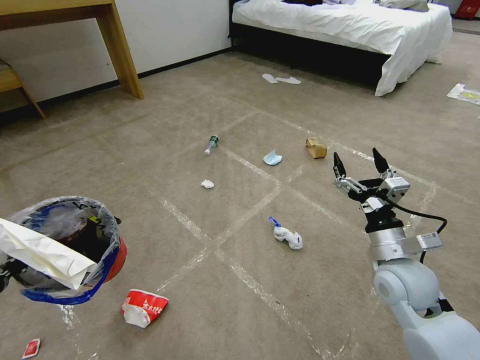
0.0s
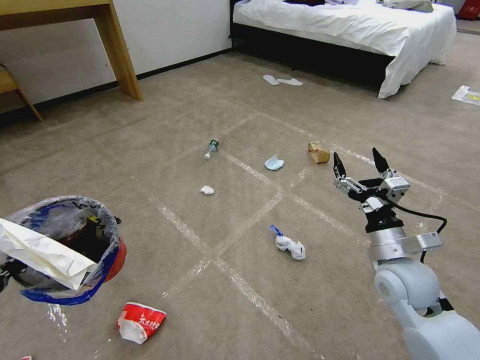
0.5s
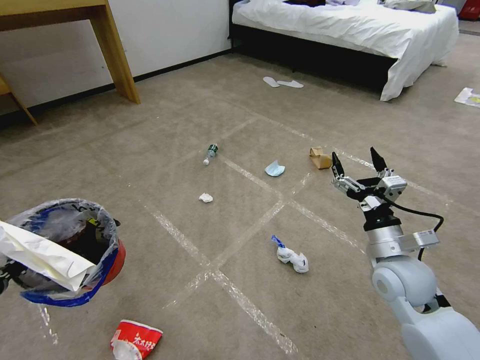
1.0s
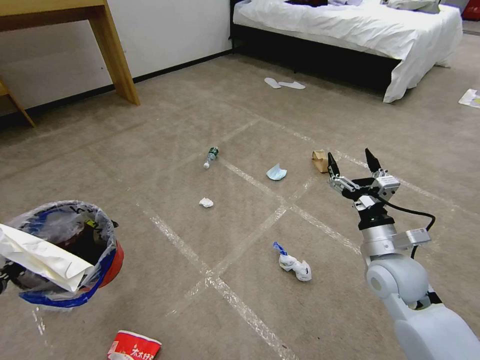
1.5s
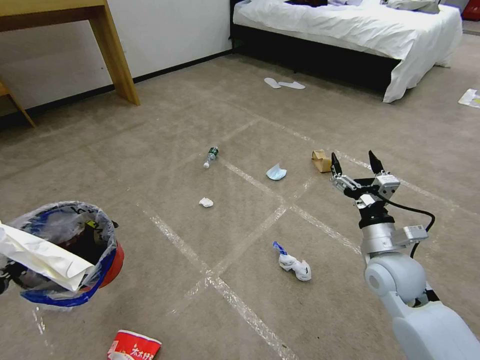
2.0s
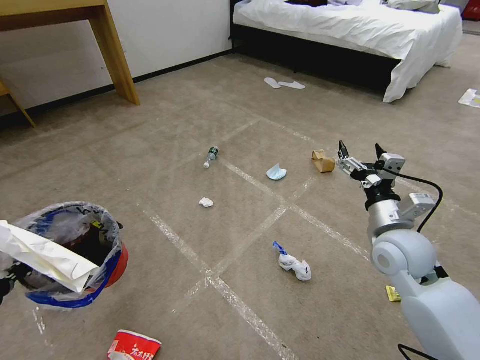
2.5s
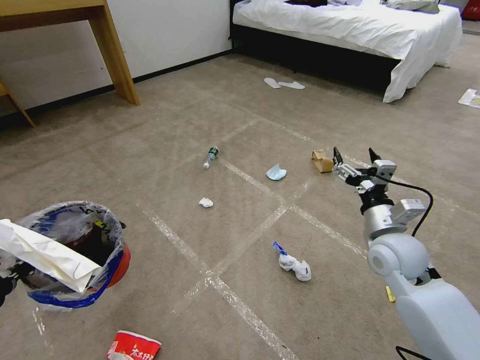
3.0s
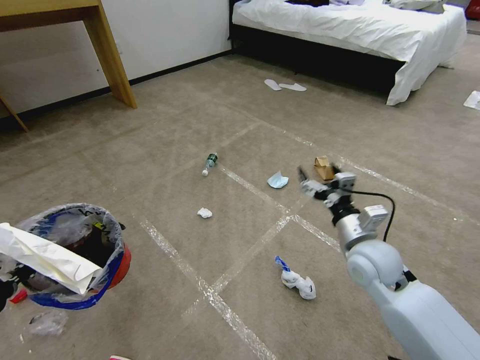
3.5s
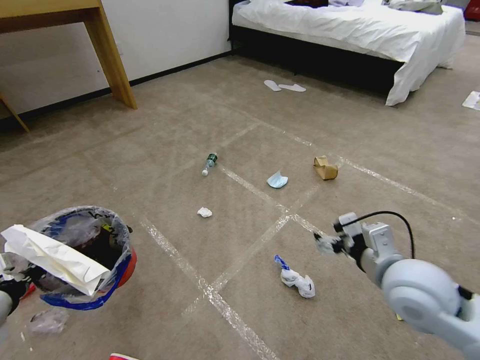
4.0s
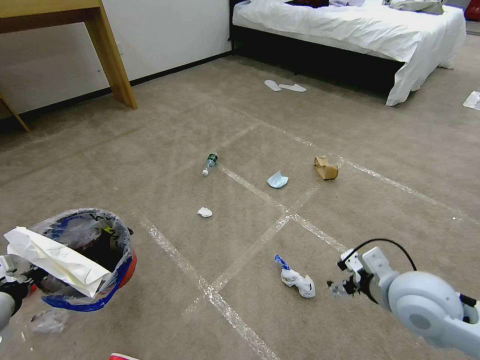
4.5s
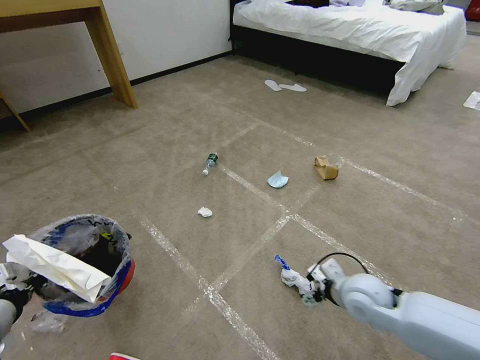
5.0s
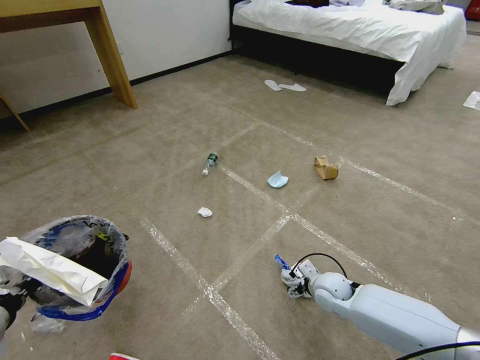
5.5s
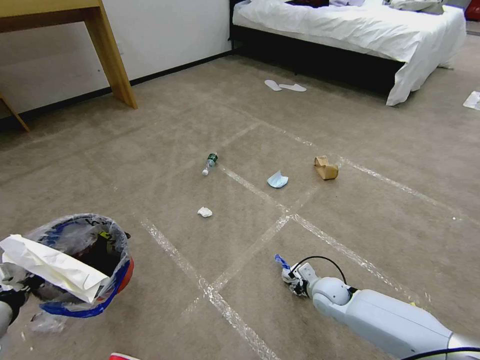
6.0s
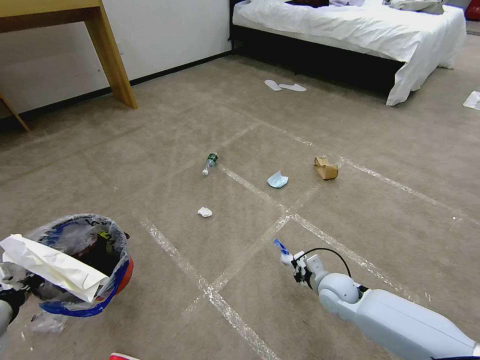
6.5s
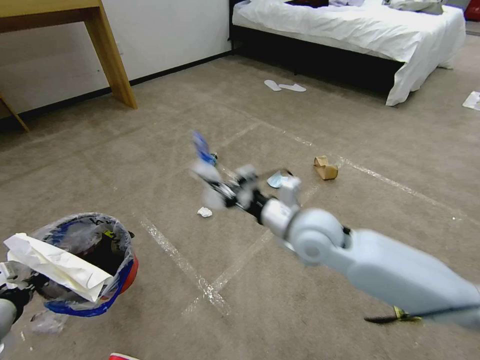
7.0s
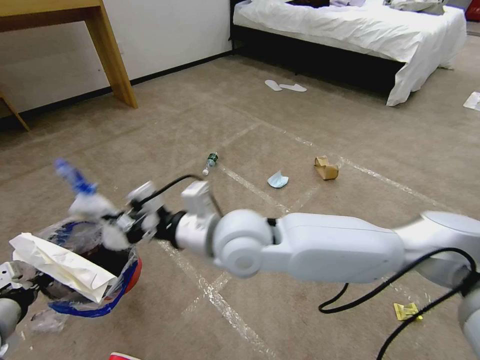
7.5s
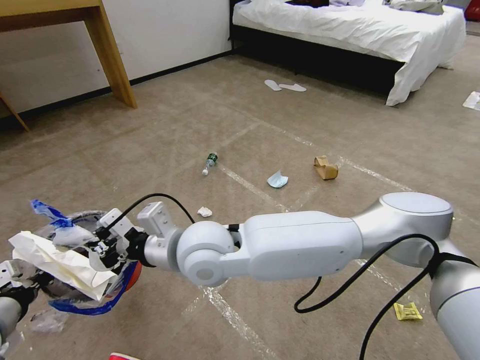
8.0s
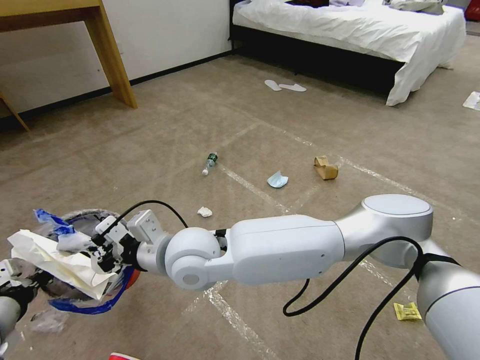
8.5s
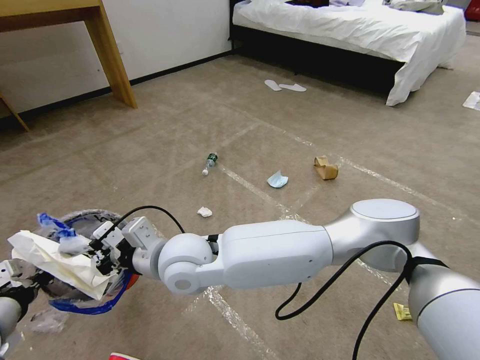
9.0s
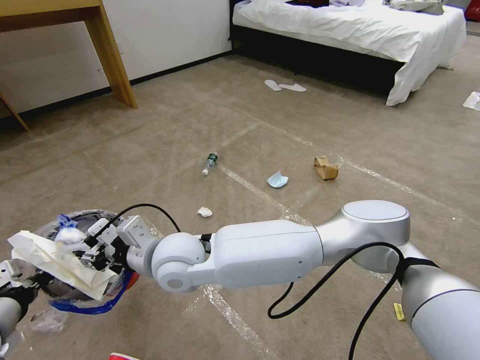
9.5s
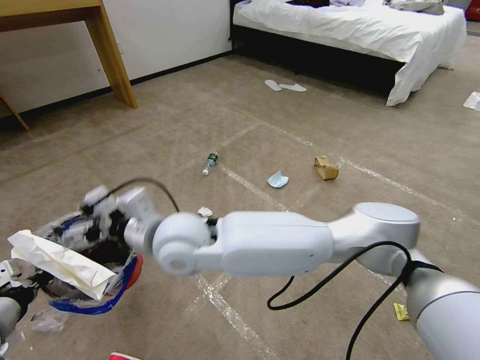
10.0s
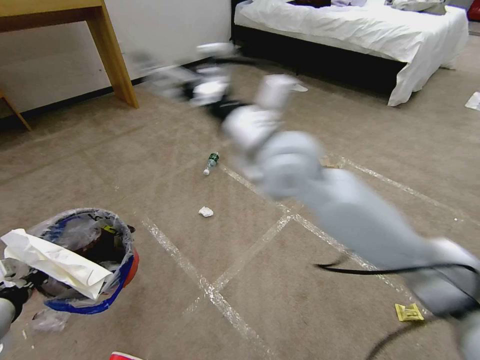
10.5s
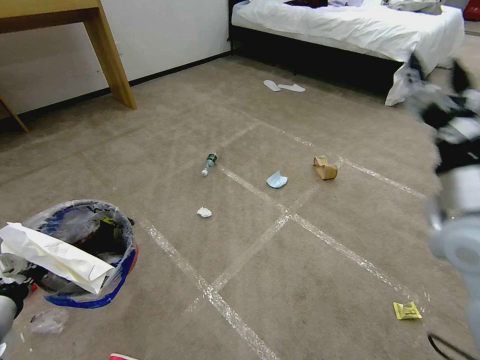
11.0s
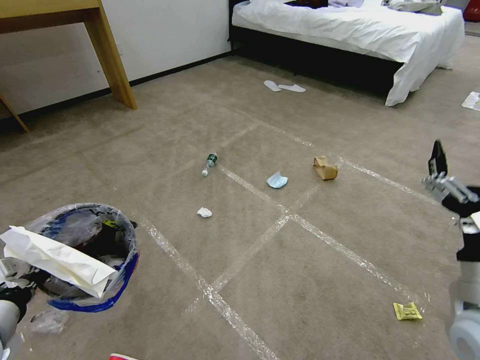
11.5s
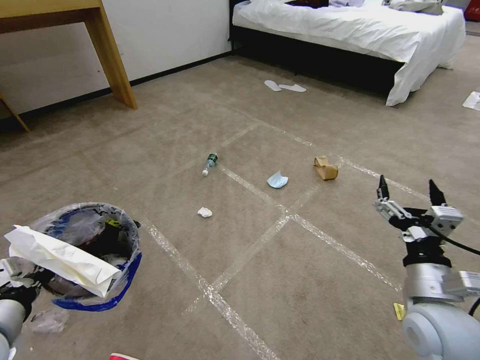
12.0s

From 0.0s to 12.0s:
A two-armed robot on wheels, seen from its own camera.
Task of the whole recording: Pick up the trash bin and place the garbage on the floor into it.
From 0.0s to 2.0s: The grippers move only a little.
From 2.0s to 4.0s: The right gripper shifts approximately 10 cm upward and backward.
From 4.0s to 6.0s: The right gripper goes roughly 30 cm downward, and closes its fingers.
From 6.0s to 8.0s: The right gripper shifts about 40 cm to the left and upward, and closes.
From 8.0s to 10.0s: The right gripper opens up.
From 10.0s to 12.0s: The right gripper travels to the right by roughly 40 cm.

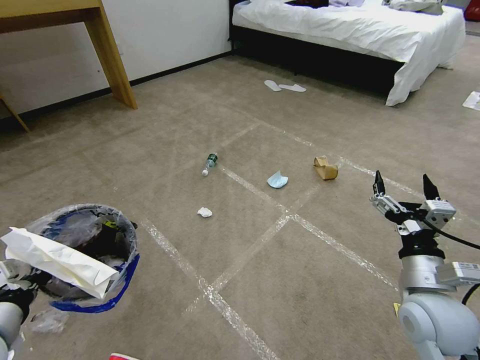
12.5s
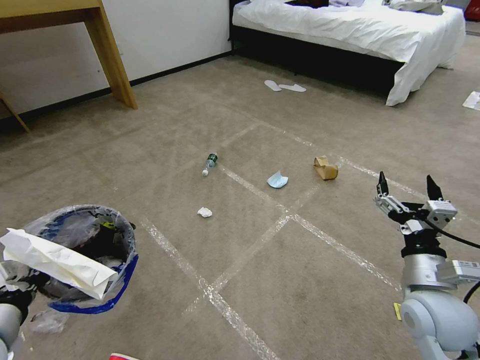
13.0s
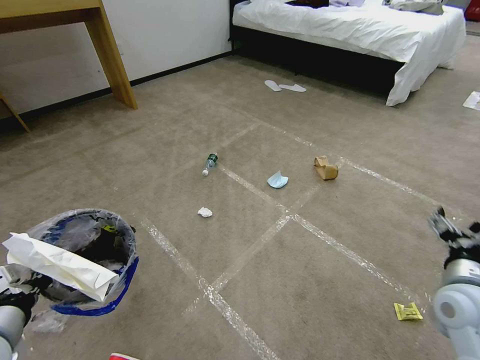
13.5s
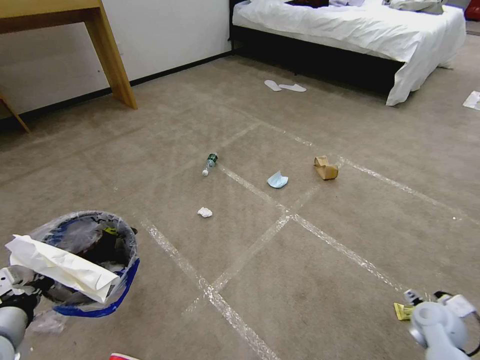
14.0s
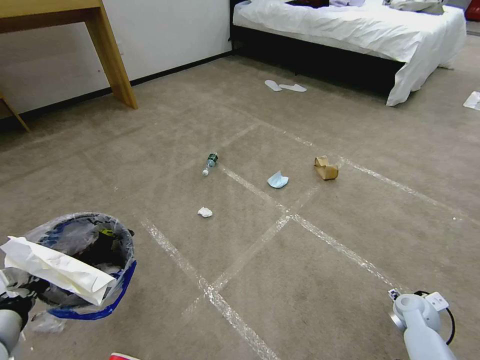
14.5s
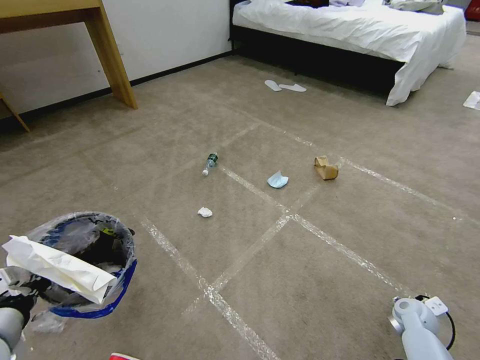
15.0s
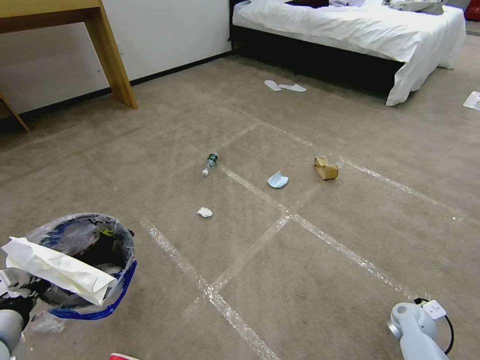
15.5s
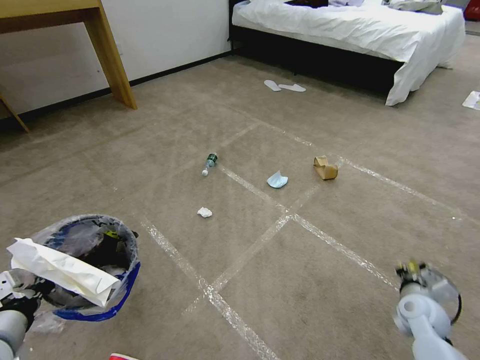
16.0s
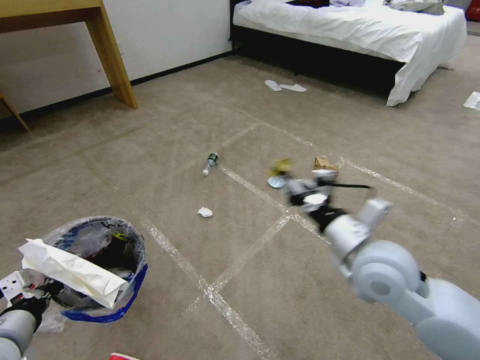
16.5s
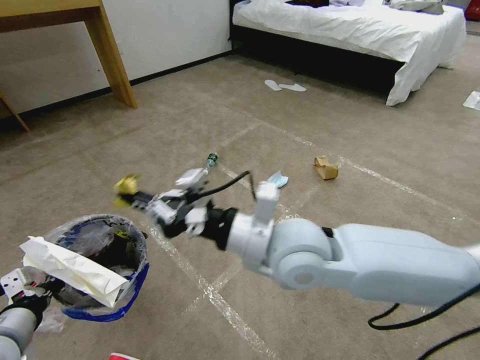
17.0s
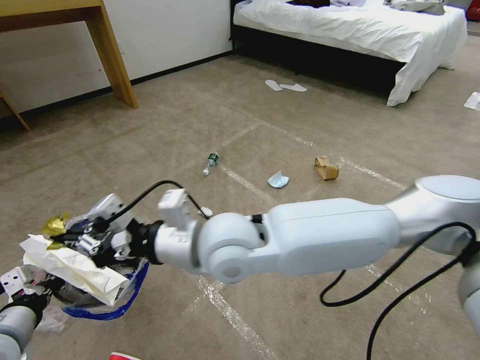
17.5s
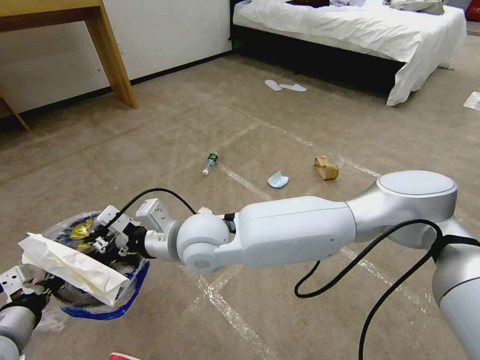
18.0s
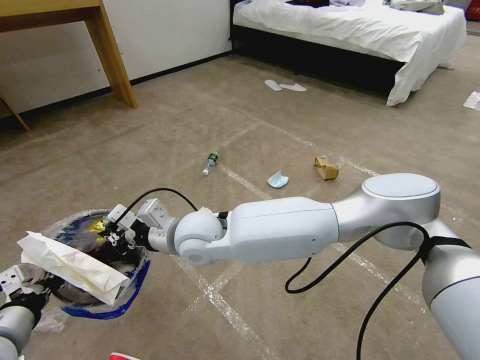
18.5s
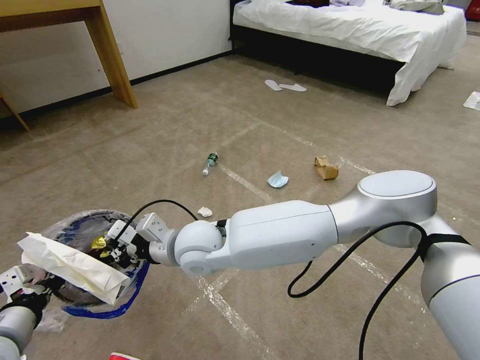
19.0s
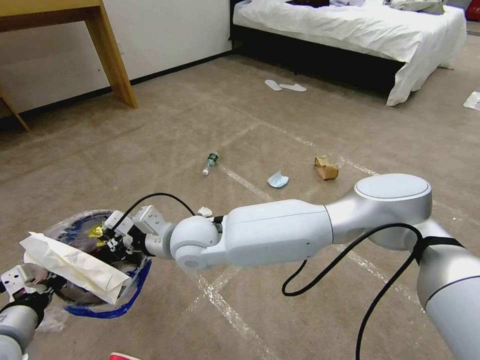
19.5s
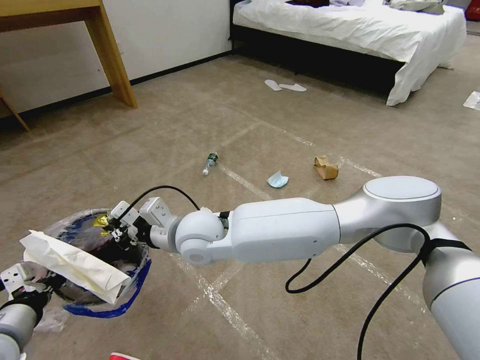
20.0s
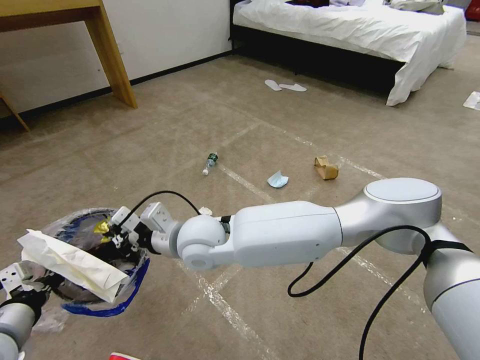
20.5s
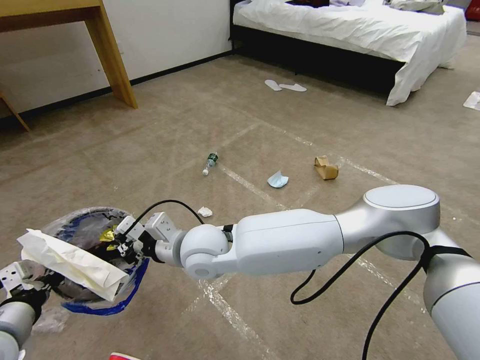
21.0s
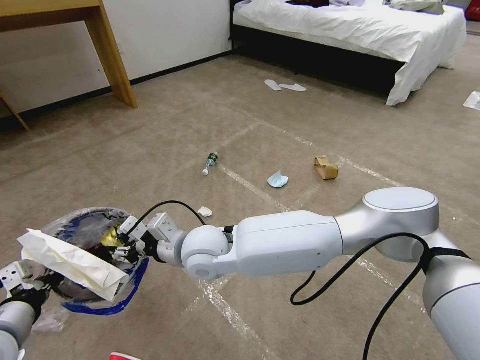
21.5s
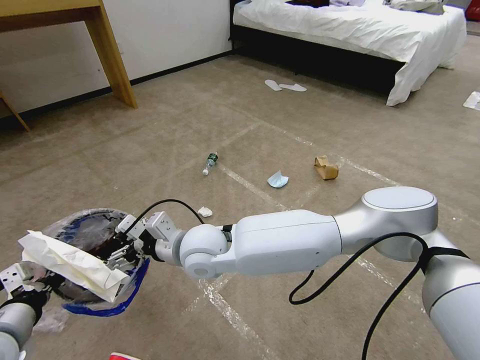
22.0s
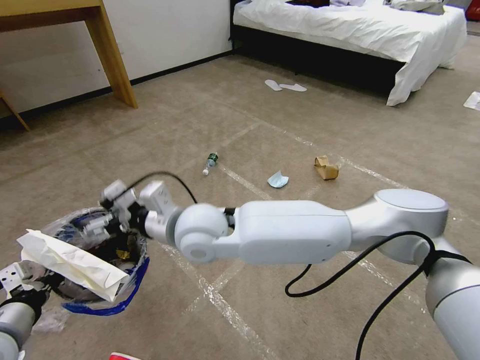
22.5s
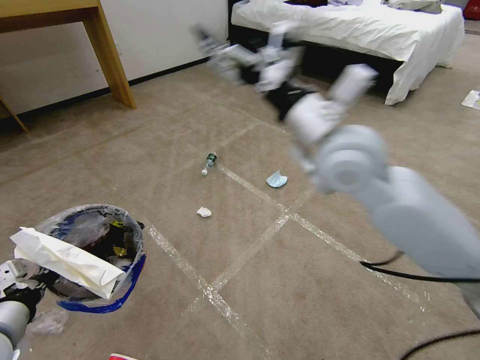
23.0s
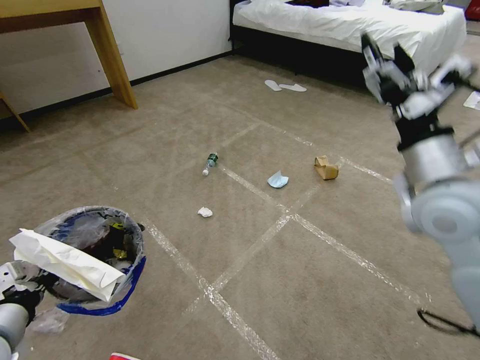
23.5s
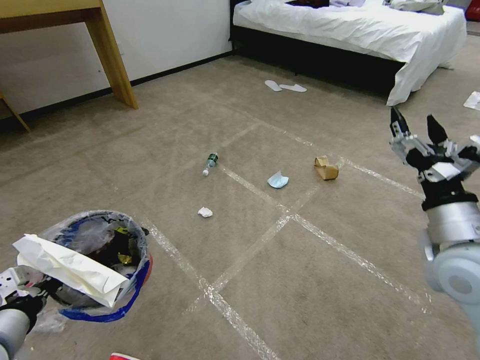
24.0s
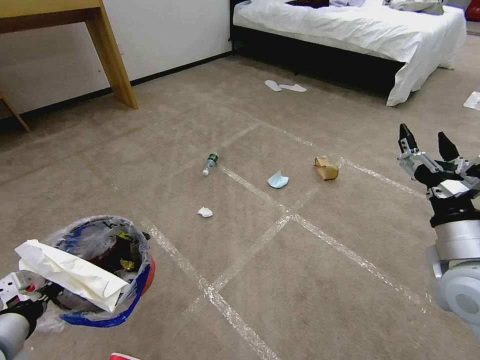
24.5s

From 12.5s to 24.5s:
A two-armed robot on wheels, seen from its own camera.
Task of the whole recording: Pick up the trash bin and place the garbage on the floor into it.
From 12.5s to 14.5s: The right gripper travels downward and to the right by about 25 cm.
From 14.5s to 16.5s: The right gripper goes some 35 cm upward and to the left, and closes.
From 16.5s to 18.5s: The right gripper moves to the left, approximately 30 cm.
From 18.5s to 20.5s: There are only small adjustments of the grippers.
From 20.5s to 22.5s: The right gripper travels upward by approximately 5 cm, and opens.
From 22.5s to 24.5s: The right gripper is displaced to the right by roughly 40 cm.

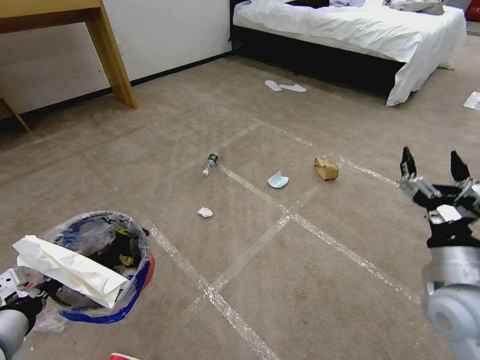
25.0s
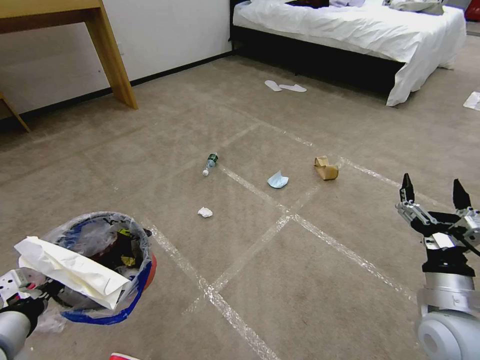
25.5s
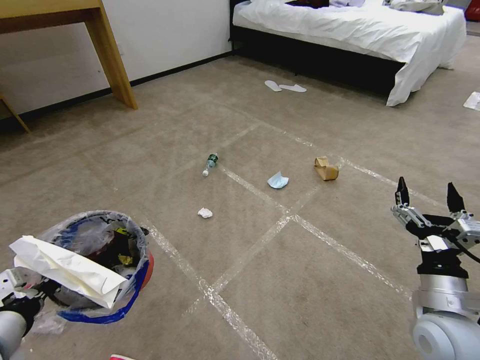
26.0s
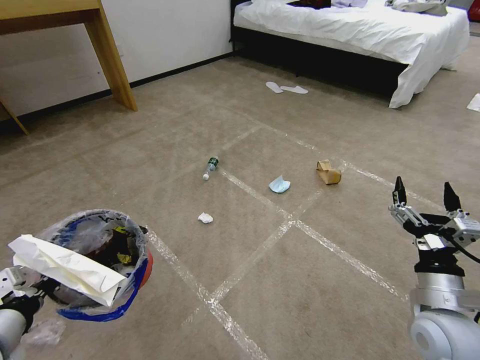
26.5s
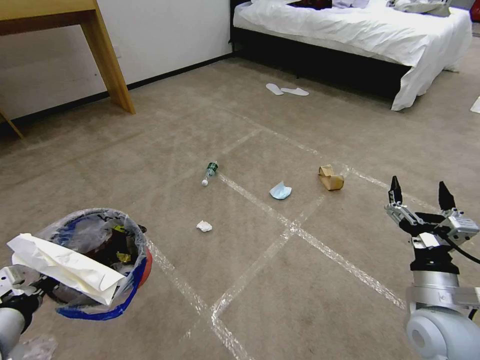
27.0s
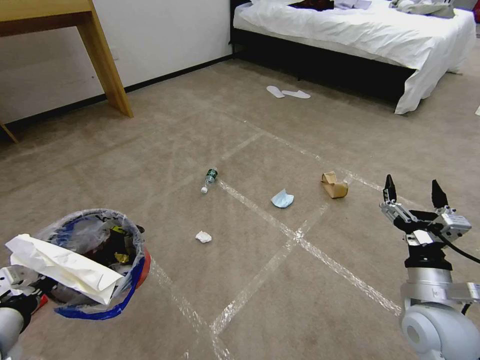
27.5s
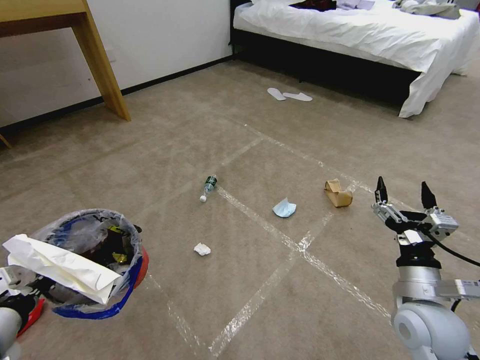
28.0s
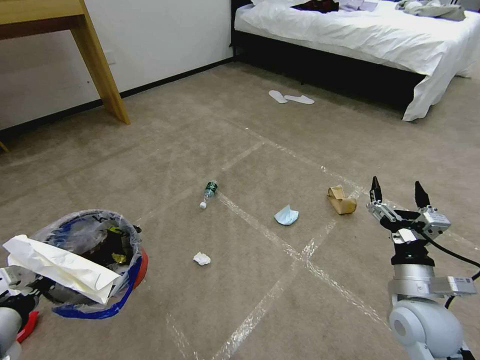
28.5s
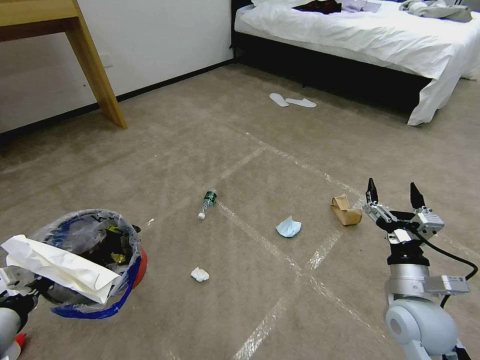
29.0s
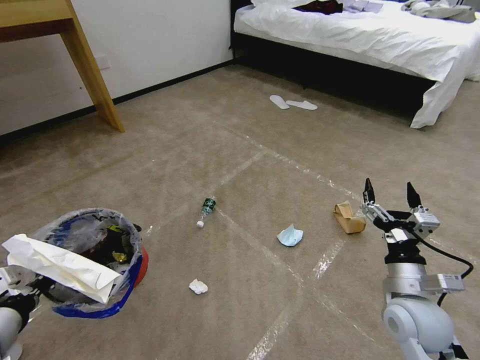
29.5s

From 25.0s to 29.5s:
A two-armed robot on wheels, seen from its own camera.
Task of the whole recording: Pick up the trash bin and place the garbage on the floor into it.
From 25.0s to 27.0s: The right gripper is displaced downward by approximately 5 cm.
